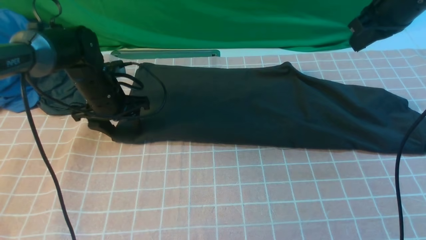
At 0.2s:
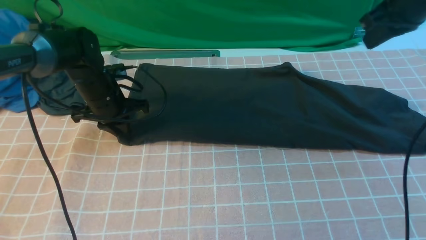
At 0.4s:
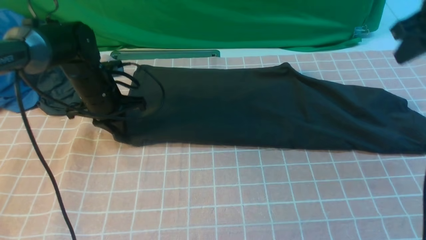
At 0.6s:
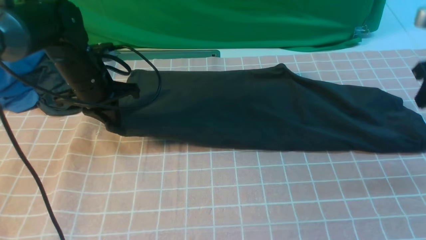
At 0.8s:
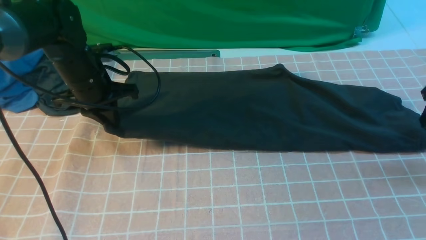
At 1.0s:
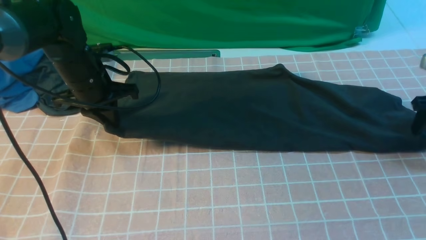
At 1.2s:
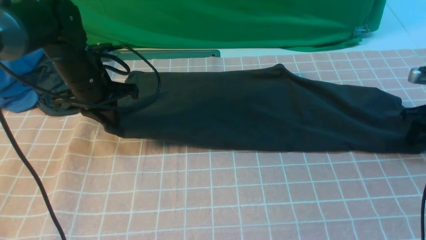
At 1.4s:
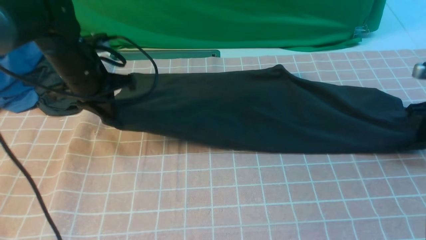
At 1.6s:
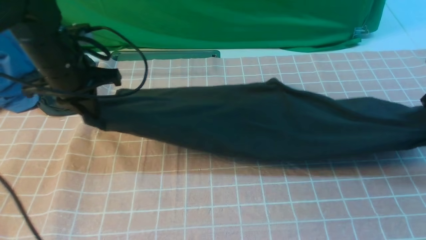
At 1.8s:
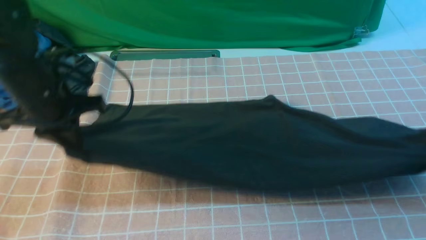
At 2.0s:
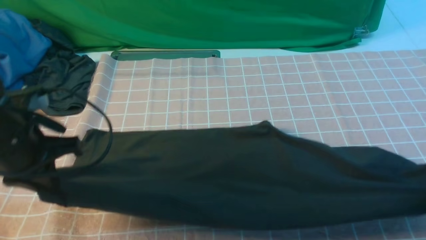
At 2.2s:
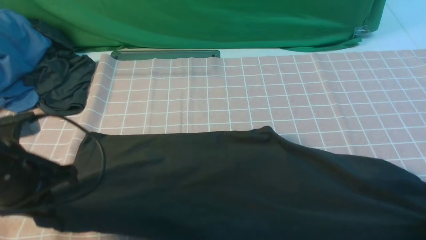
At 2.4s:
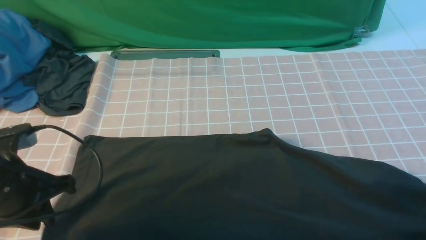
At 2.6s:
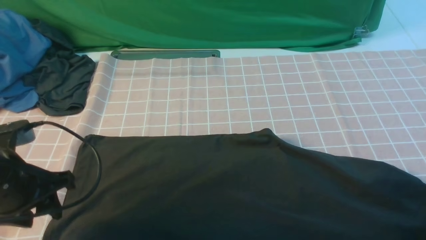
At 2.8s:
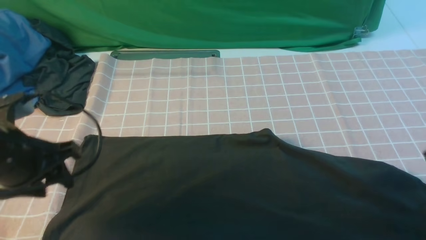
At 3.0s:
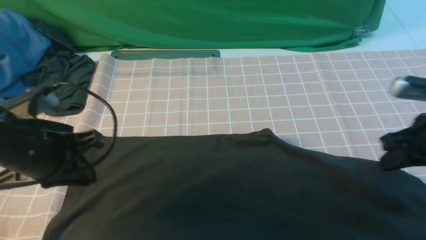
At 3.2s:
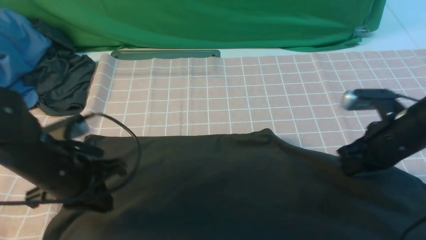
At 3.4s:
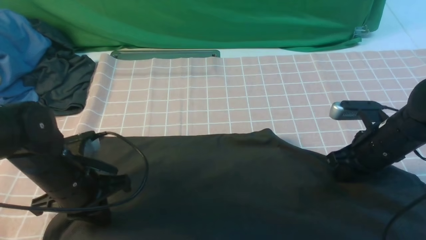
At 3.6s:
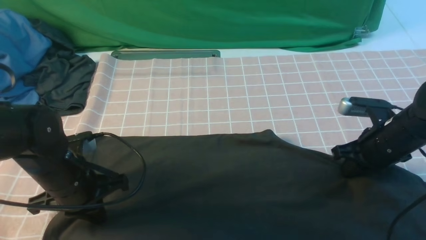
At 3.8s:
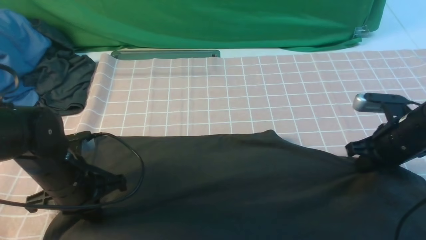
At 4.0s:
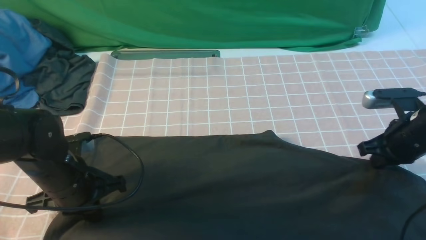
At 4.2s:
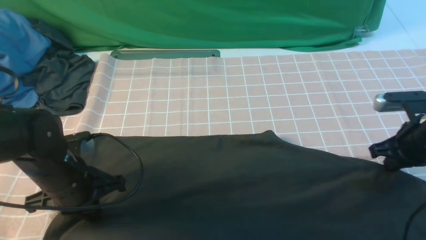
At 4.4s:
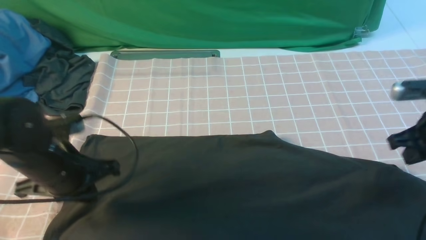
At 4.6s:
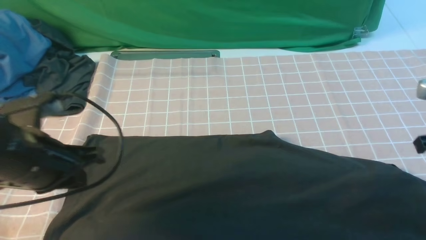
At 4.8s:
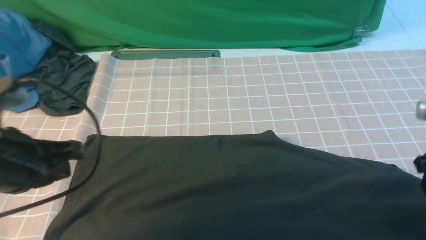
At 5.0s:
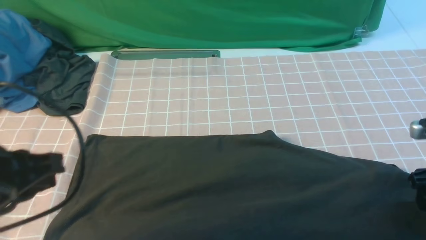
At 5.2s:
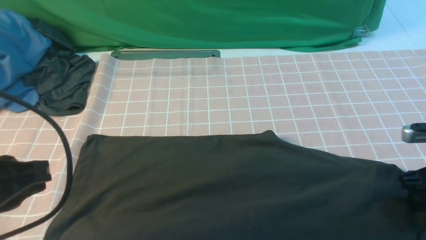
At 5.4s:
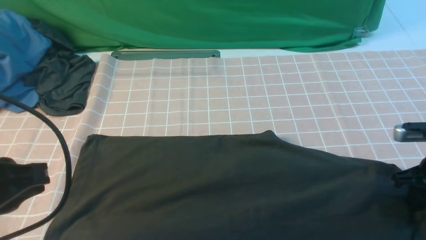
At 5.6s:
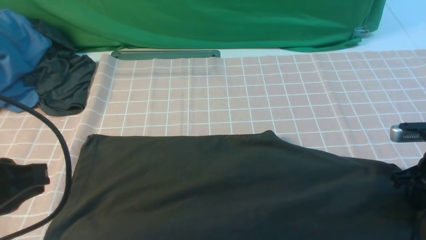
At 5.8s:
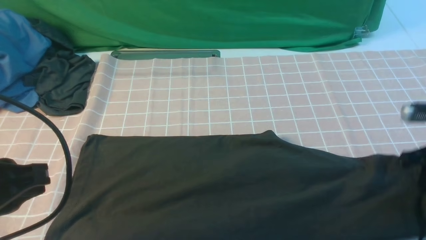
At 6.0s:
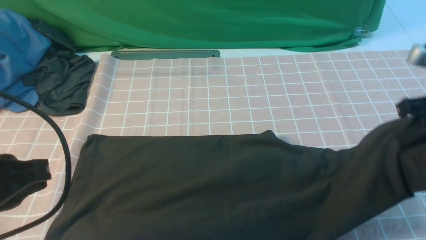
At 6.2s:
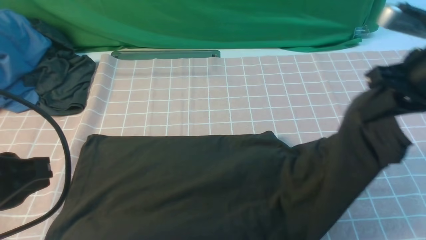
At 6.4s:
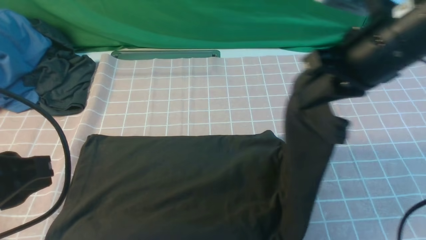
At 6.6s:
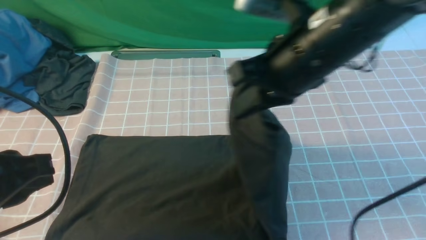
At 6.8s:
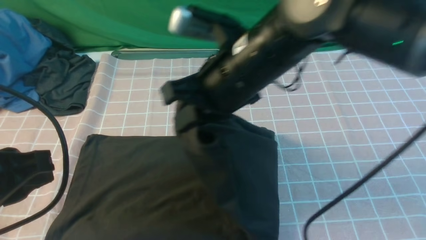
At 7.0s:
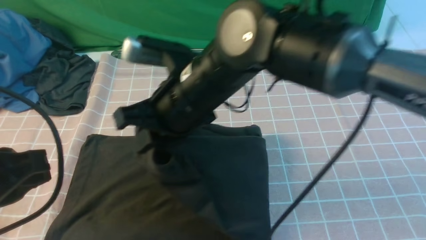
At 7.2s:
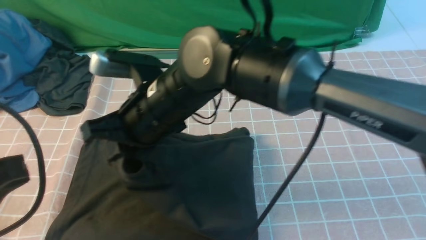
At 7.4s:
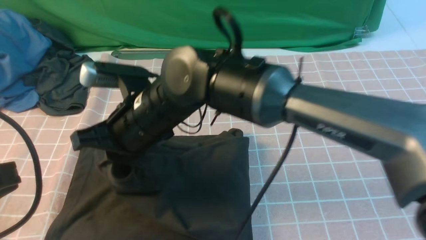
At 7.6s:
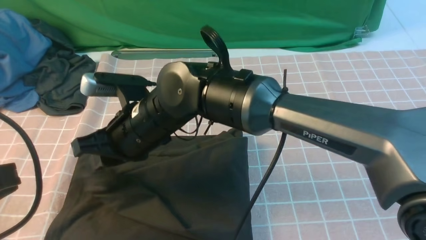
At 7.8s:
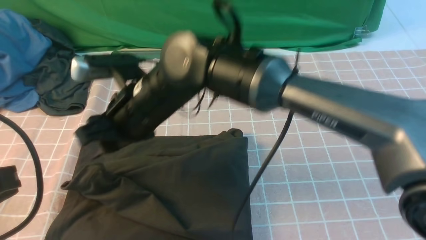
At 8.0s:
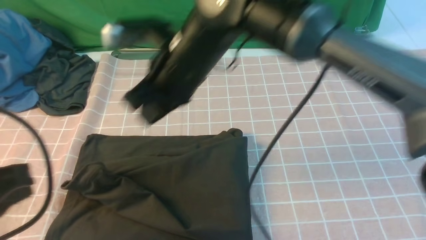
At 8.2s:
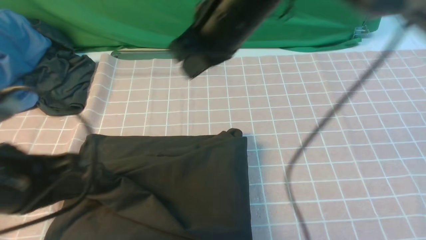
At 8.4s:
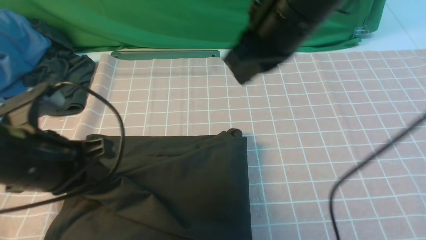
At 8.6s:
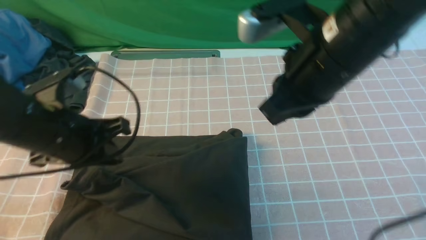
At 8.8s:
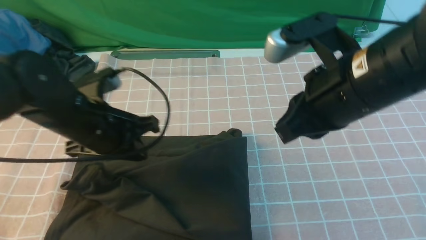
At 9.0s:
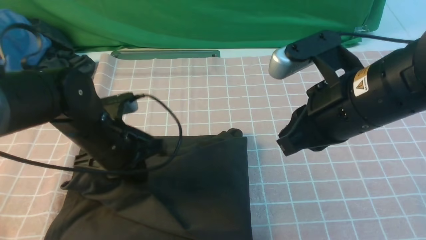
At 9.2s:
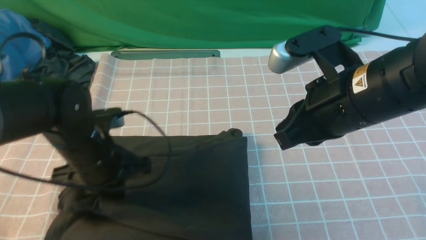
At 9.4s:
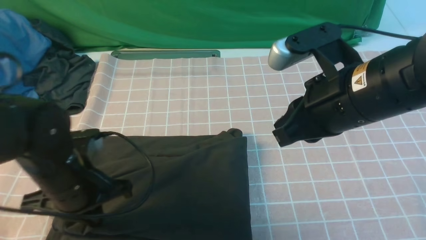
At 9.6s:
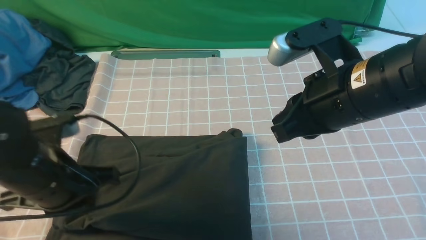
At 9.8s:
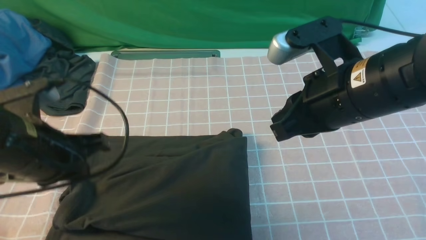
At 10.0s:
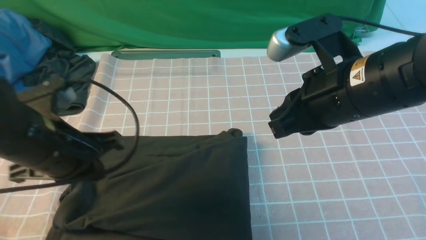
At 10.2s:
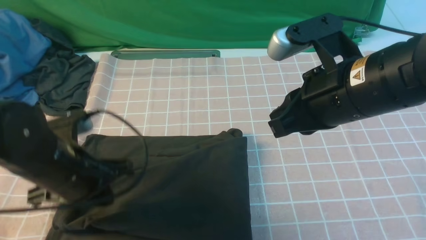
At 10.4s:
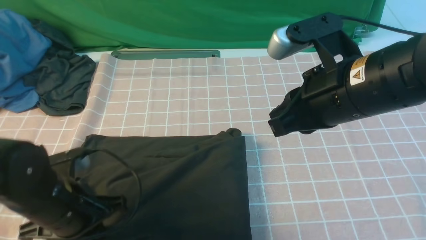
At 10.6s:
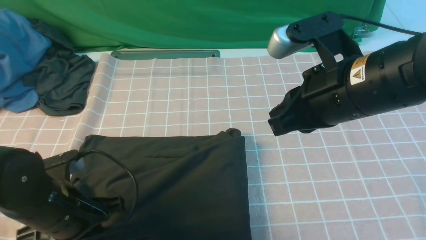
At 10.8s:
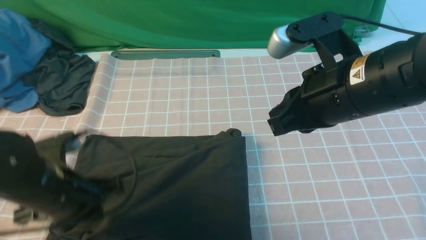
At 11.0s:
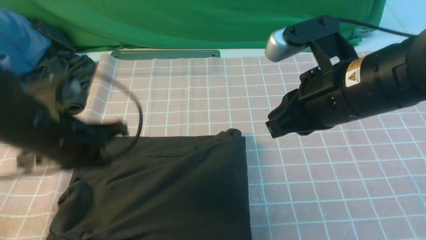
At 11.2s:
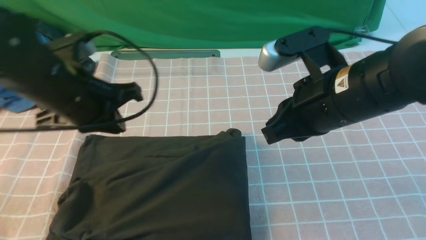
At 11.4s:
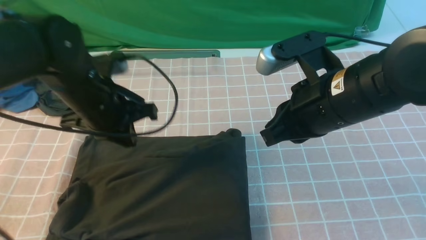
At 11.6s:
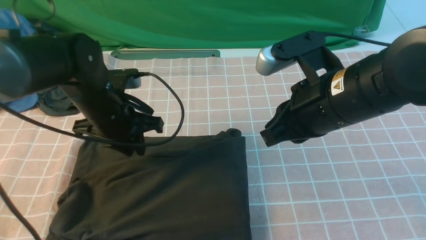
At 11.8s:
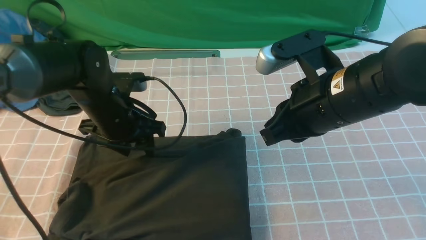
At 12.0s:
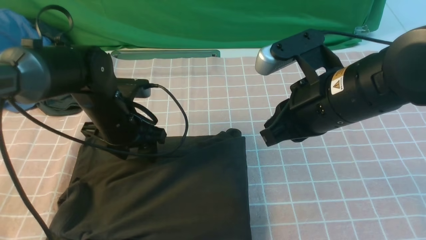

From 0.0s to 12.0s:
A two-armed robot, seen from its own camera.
Step, from 0.0s to 5.8s: use the right arm to clamp the right edge of the fabric.
Step, from 6.0s to 7.6s: use the right arm to drag the right edge of the fabric to the left and folds it over the left edge.
From 0.0s to 1.6s: The left gripper moves upward and backward, approximately 15 cm, and closes up. Meanwhile the right gripper goes approximately 20 cm to the right, downward and backward, and opens and closes again.
From 1.6s to 3.0s: The right gripper heads to the left and backward, covering approximately 10 cm, and opens, then closes again. Meanwhile the left gripper shifts some 10 cm backward, and opens, then closes once more.
From 3.0s to 4.4s: The left gripper moves approximately 10 cm downward and comes back.
From 4.4s to 6.0s: The left gripper is displaced backward and upward by about 15 cm. The right gripper moves upward, approximately 5 cm, and opens, then closes once more.
From 6.0s to 7.6s: The right gripper heads to the left, covering about 40 cm, and opens up.
From 7.6s to 9.0s: The right gripper shifts about 25 cm to the right, and closes. The left gripper moves forward and downward, about 20 cm.
From 9.0s to 10.4s: The left gripper goes approximately 10 cm backward, and travels upward and back again, roughly 5 cm each way.
From 10.4s to 12.0s: The left gripper shifts approximately 15 cm forward, and opens its fingers.

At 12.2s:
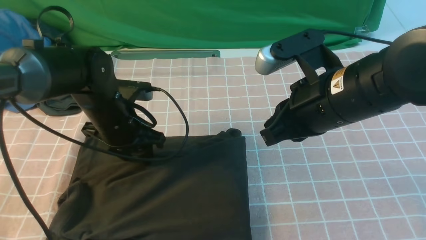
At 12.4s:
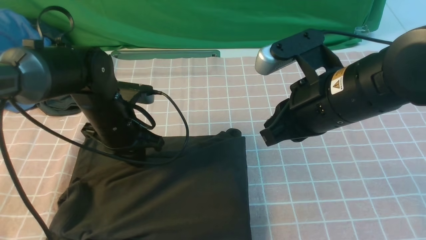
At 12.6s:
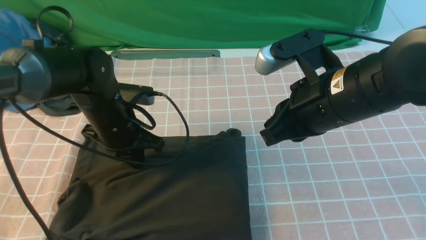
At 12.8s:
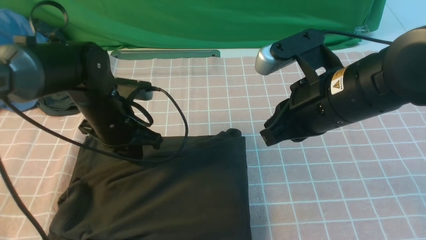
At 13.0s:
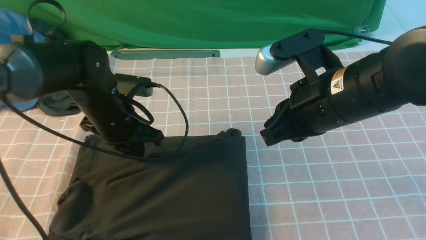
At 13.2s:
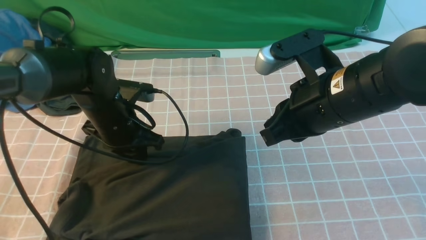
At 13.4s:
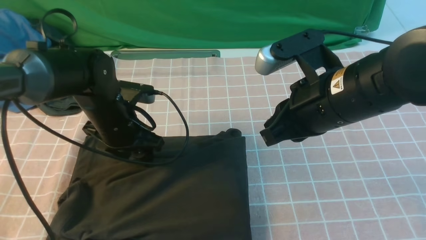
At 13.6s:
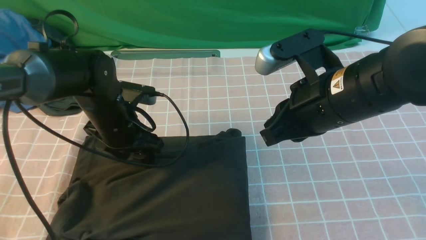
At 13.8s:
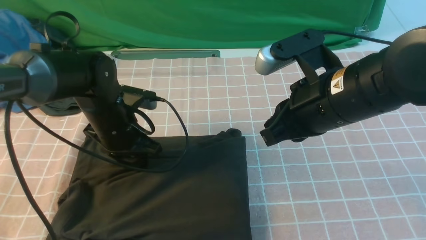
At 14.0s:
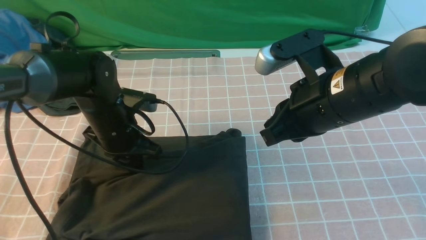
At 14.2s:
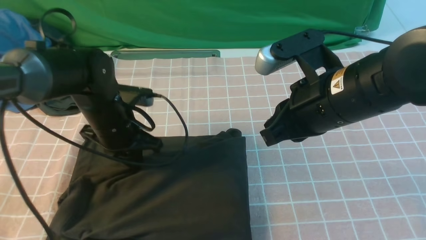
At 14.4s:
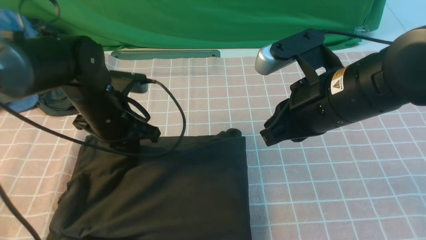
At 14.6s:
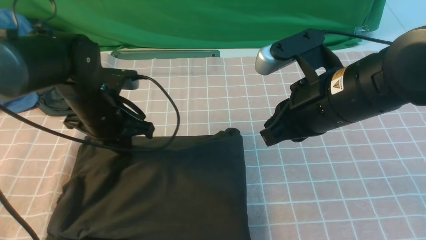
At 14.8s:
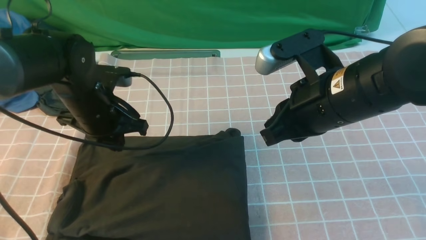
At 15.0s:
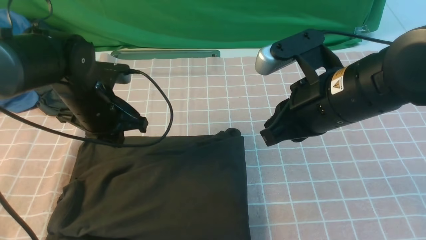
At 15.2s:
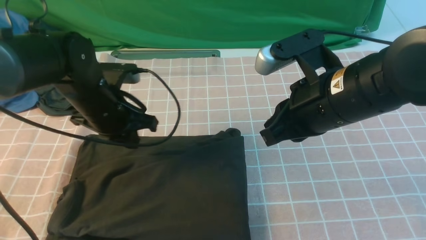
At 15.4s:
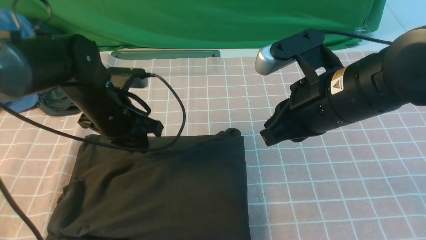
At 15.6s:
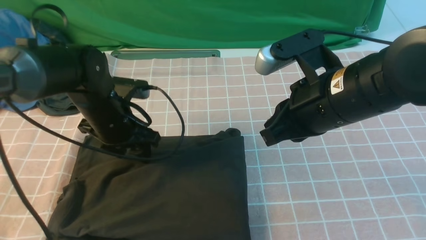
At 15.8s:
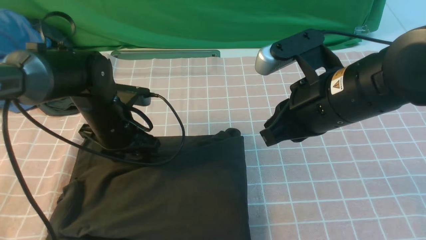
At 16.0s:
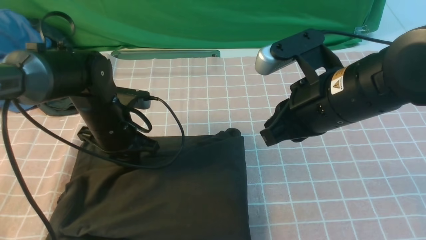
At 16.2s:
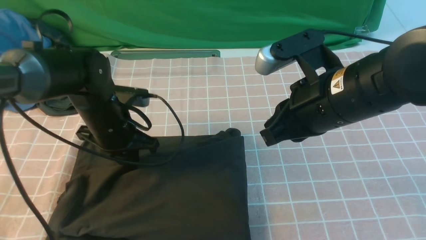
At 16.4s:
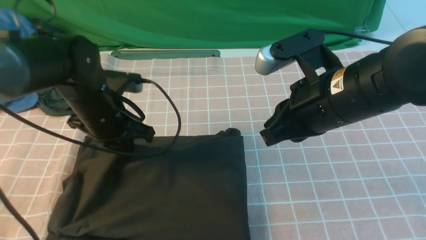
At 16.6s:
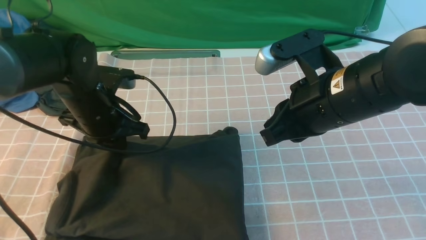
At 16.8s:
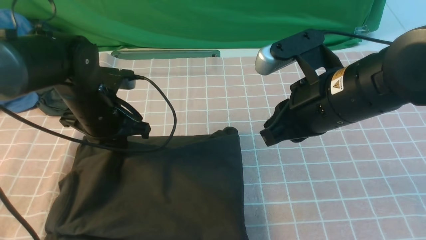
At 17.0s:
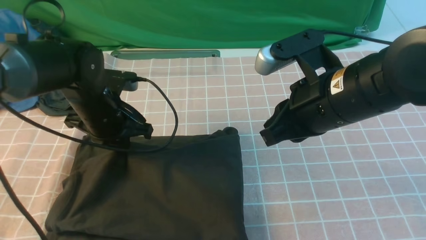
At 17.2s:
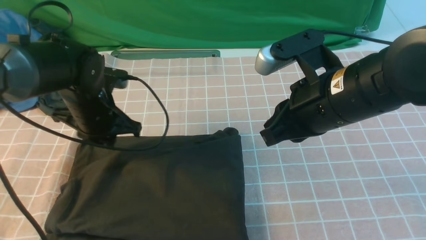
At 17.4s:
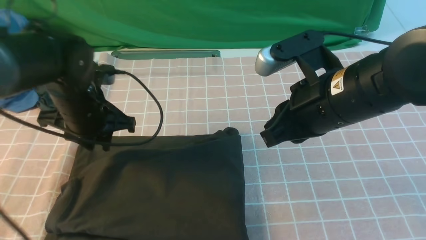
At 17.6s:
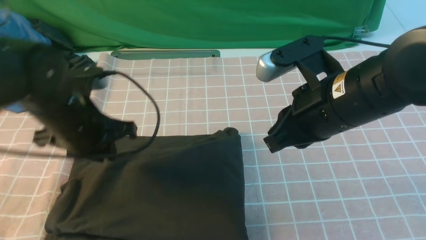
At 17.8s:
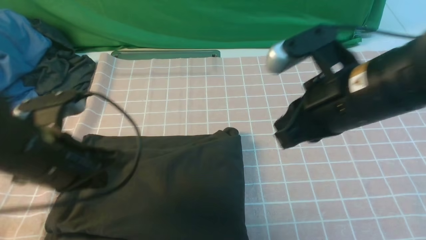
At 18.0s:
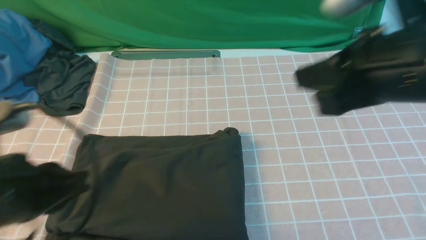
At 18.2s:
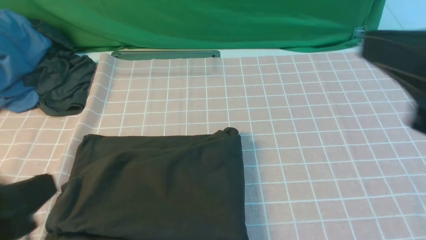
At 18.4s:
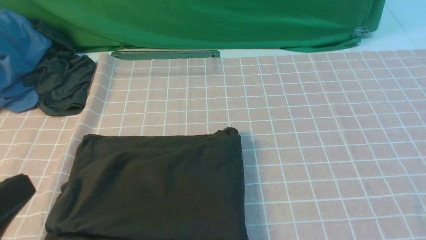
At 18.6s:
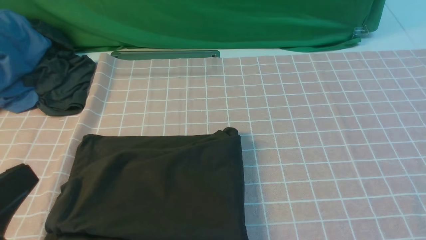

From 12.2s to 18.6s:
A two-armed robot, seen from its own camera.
From 12.2s to 13.8s: The left gripper closes and opens again.
From 13.8s to 15.4s: The left gripper closes, then reopens.
From 15.4s to 17.0s: The left gripper closes up.
From 17.0s to 18.6s: The left gripper heads backward, covering about 30 cm; the right gripper travels backward and to the right by about 25 cm.
